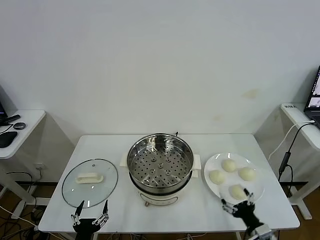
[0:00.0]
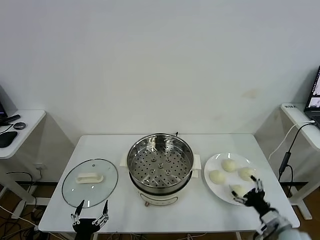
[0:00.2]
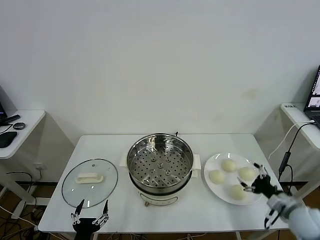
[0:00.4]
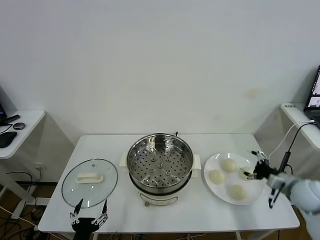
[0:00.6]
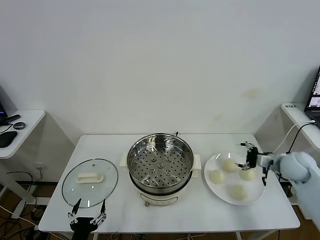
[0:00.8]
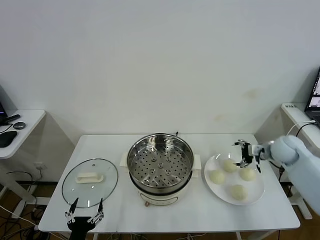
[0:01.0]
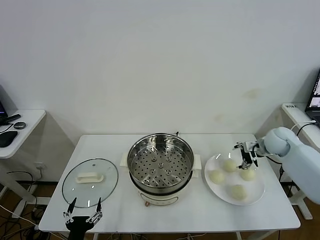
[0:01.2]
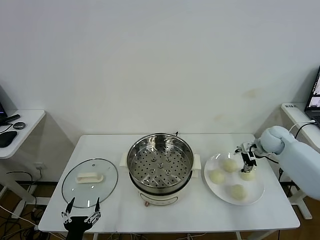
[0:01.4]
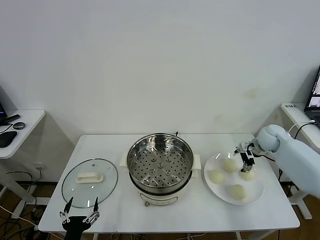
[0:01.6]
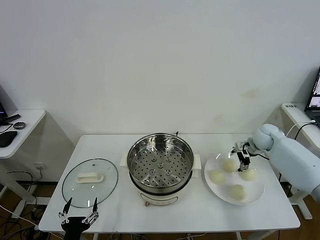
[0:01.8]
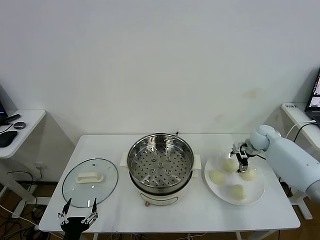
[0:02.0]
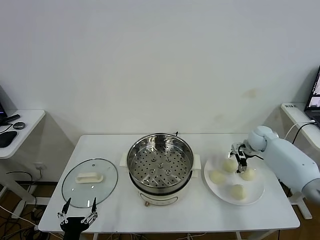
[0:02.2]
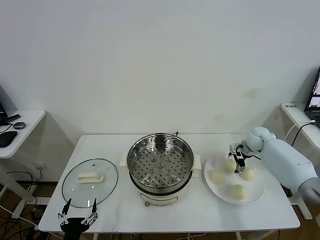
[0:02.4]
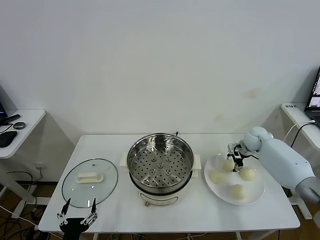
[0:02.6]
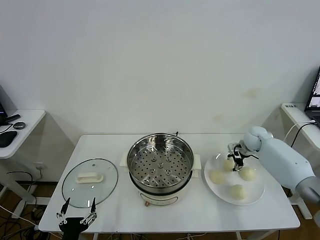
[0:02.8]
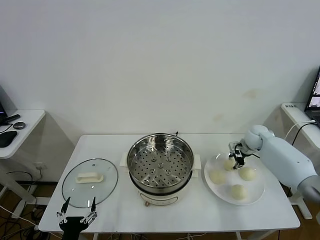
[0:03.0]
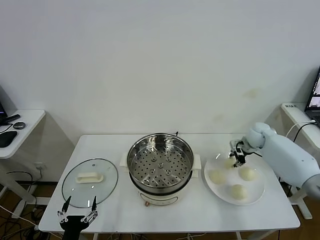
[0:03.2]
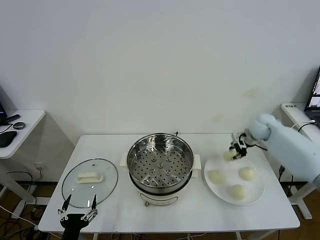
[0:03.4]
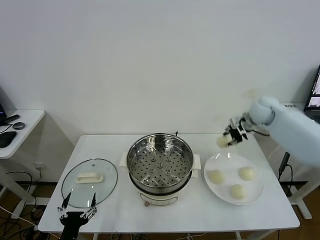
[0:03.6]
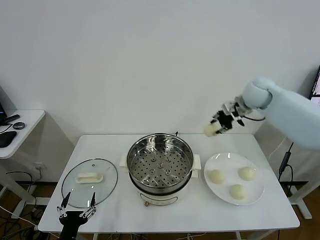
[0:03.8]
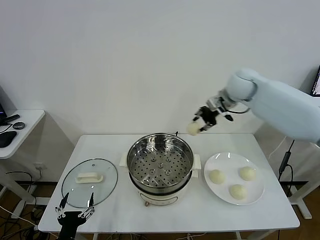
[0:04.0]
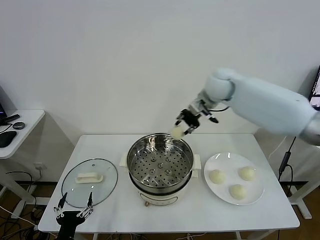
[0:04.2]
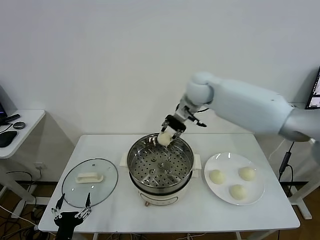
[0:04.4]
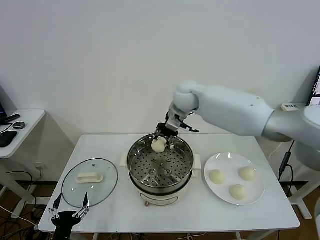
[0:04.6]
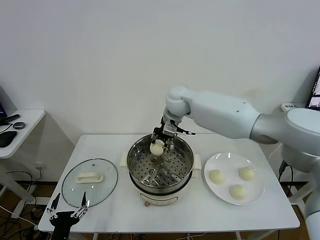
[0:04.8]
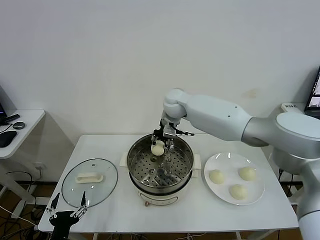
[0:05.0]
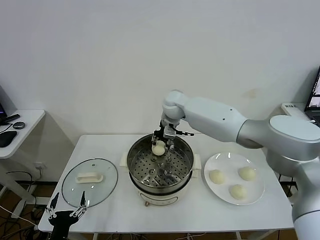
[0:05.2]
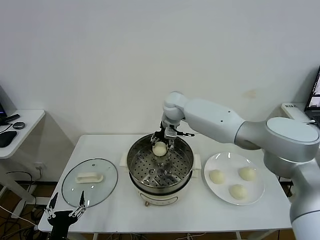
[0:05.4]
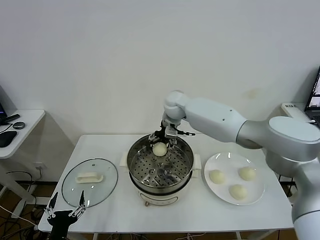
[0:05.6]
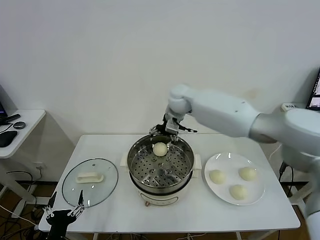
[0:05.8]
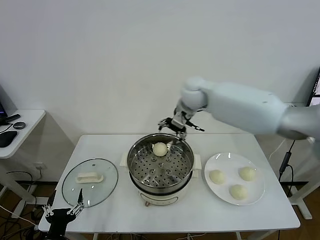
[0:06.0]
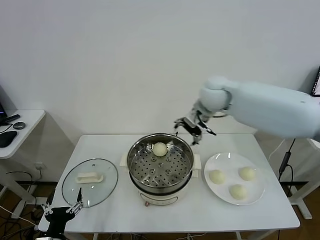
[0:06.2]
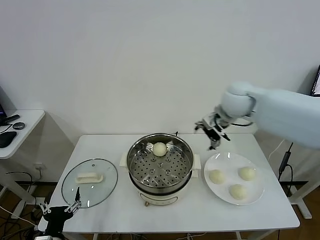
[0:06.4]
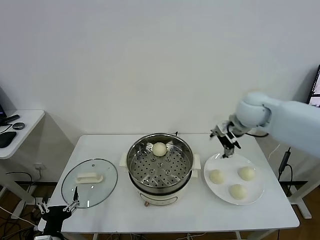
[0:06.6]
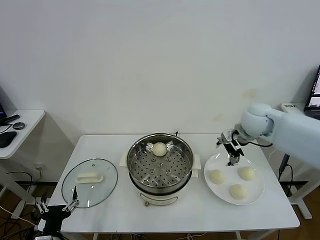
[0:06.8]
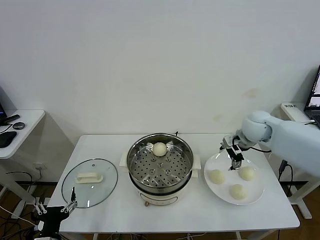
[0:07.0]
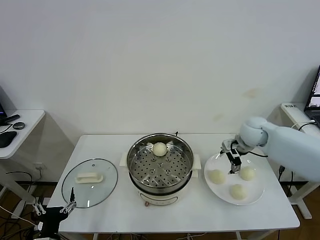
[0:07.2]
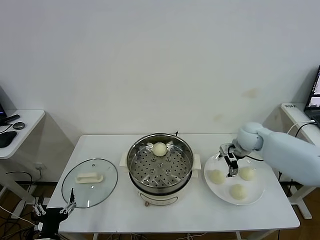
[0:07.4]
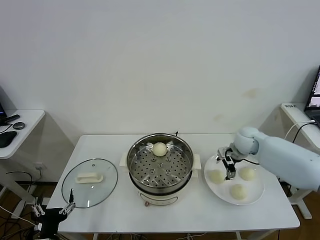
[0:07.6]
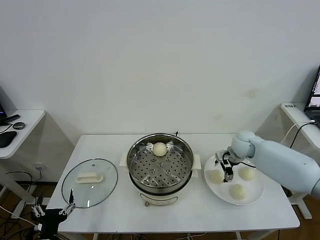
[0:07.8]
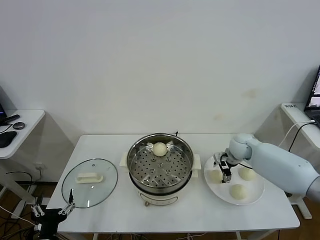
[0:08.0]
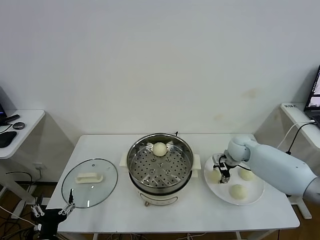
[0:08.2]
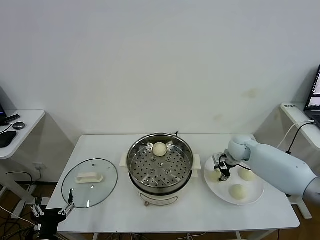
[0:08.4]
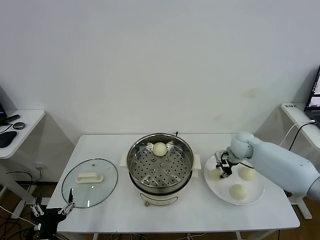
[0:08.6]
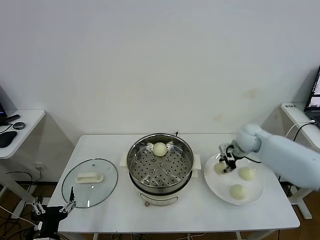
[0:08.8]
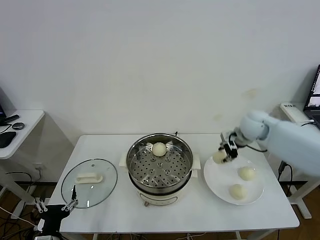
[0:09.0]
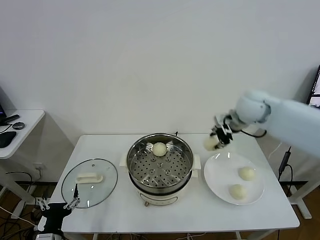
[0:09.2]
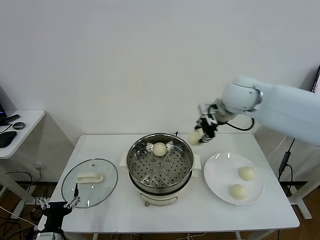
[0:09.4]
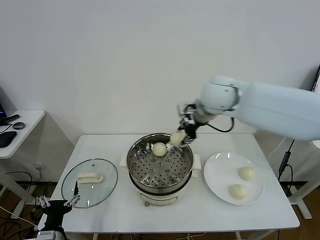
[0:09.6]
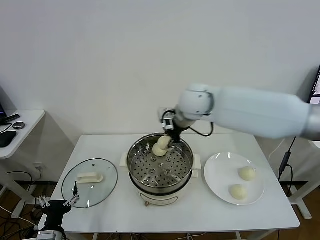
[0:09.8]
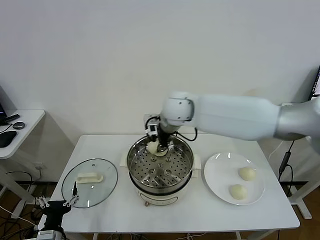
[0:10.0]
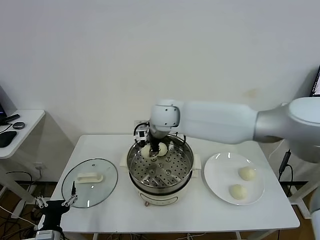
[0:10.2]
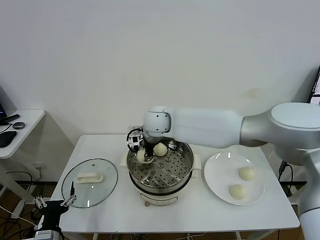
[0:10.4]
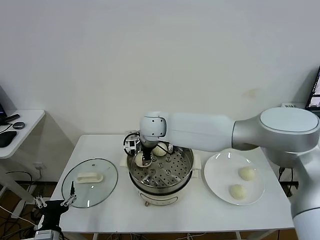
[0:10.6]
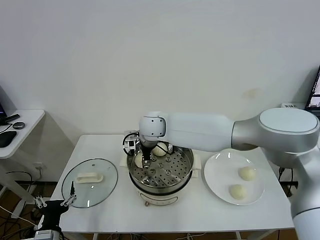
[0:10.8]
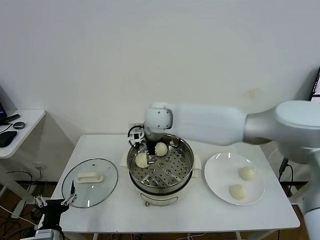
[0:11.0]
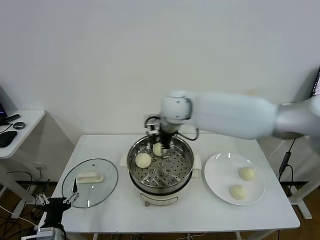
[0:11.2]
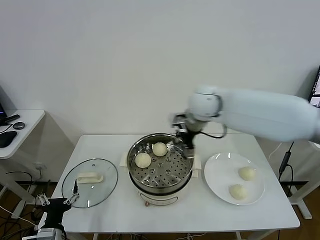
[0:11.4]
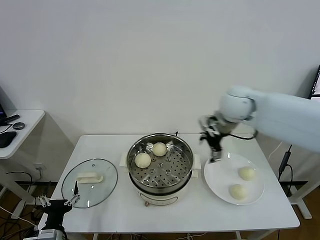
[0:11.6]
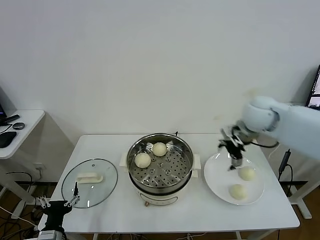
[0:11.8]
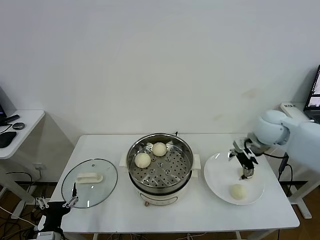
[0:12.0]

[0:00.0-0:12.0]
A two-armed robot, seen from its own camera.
Task of the whole recording: take steamed baozi put them in steamer.
Step, 0:00.0 to 0:02.8: Grasp the baozi in the plate with right gripper.
Step, 0:03.0 to 0:05.6: Place the baozi on the steamer with right gripper.
Step, 0:05.8 to 0:08.6: Grasp the baozi in the plate with right gripper.
Step, 0:08.8 to 0:11.0: Place the baozi on the steamer with right gripper.
0:01.6 to 0:03.0: The right gripper moves approximately 5 cm, and closes its fingers.
0:03.0 to 0:04.4: The right gripper travels to the left and upward by roughly 35 cm.
0:04.4 to 0:06.0: The right gripper travels downward and back again, some 10 cm each way, and opens up.
0:06.0 to 0:07.6: The right gripper goes roughly 25 cm to the right and downward.
0:07.6 to 0:09.0: The right gripper shifts some 5 cm upward, and closes up.
0:09.0 to 0:10.4: The right gripper is displaced to the left by approximately 35 cm.
0:10.4 to 0:12.0: The right gripper is displaced to the right by approximately 35 cm, and opens.

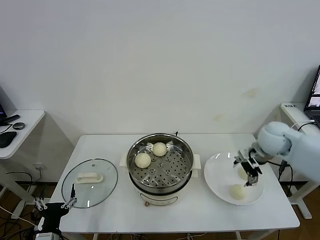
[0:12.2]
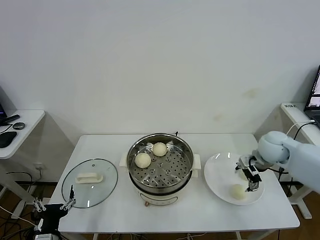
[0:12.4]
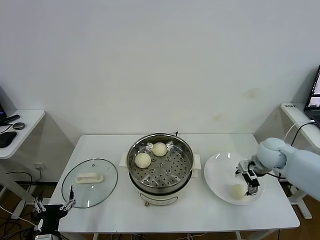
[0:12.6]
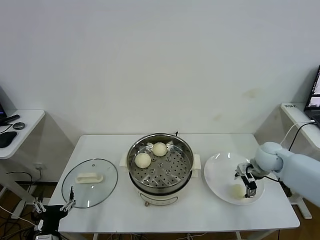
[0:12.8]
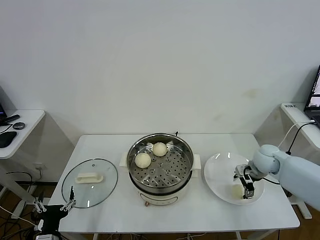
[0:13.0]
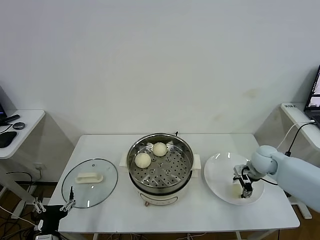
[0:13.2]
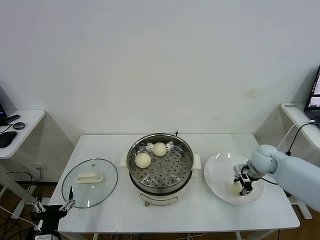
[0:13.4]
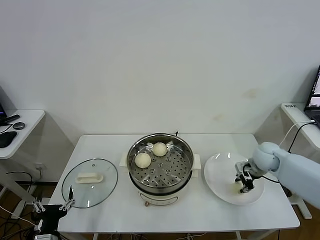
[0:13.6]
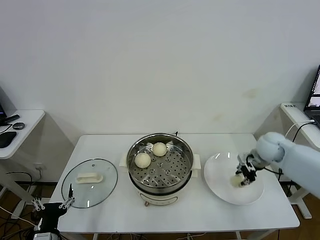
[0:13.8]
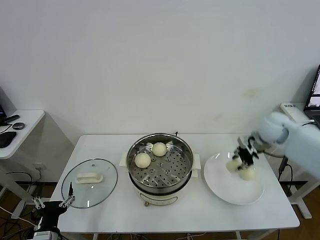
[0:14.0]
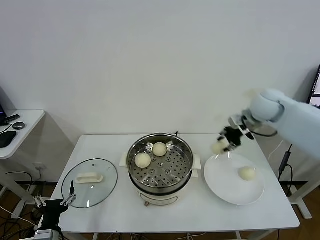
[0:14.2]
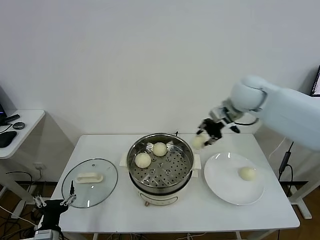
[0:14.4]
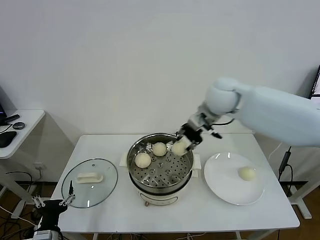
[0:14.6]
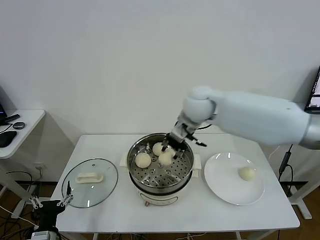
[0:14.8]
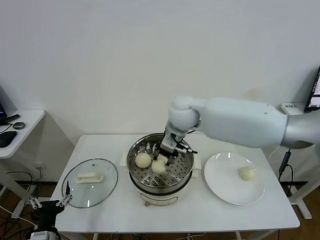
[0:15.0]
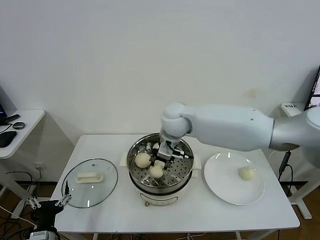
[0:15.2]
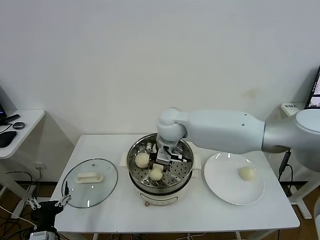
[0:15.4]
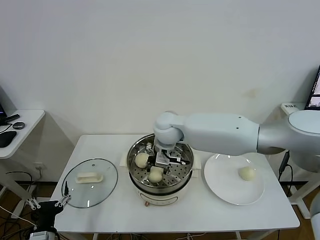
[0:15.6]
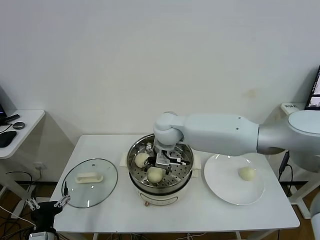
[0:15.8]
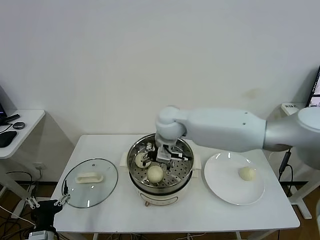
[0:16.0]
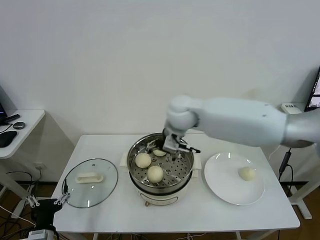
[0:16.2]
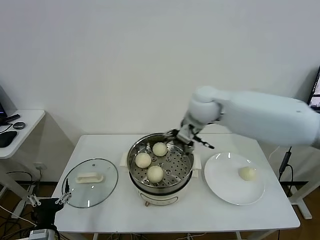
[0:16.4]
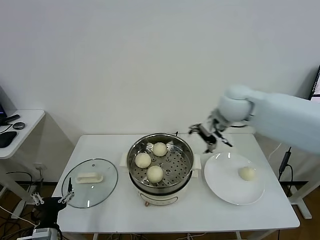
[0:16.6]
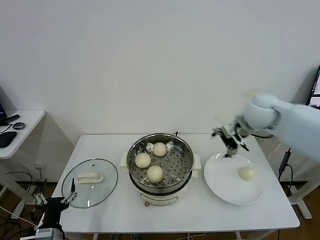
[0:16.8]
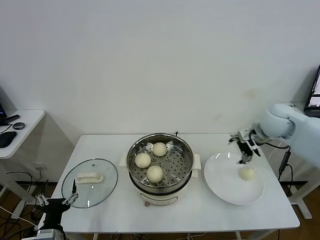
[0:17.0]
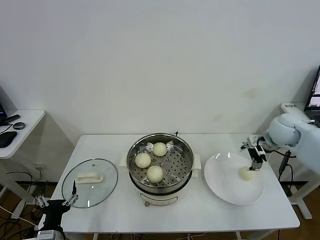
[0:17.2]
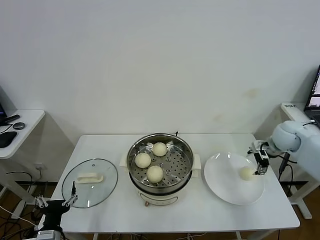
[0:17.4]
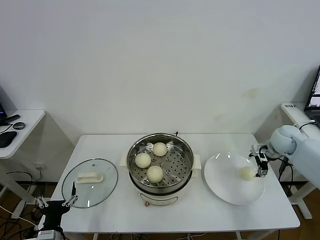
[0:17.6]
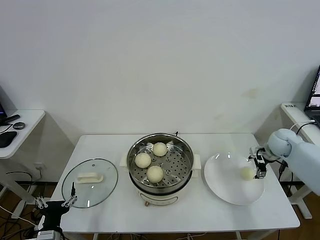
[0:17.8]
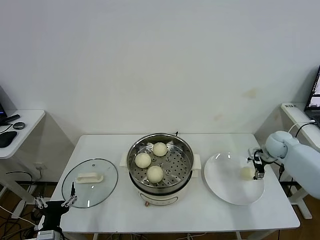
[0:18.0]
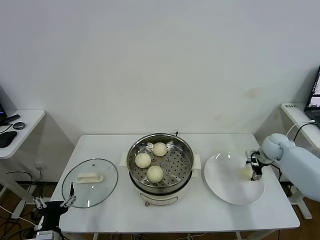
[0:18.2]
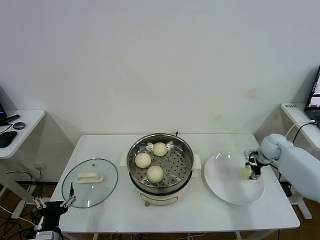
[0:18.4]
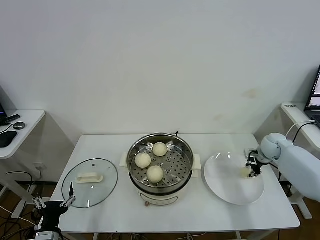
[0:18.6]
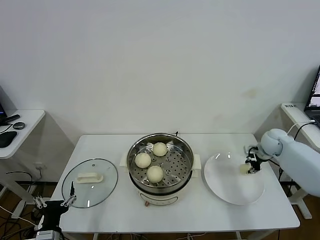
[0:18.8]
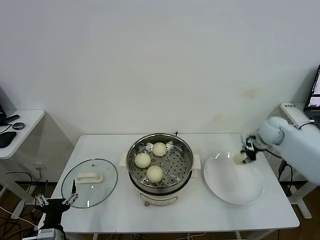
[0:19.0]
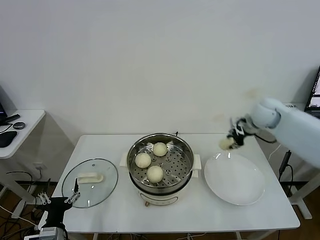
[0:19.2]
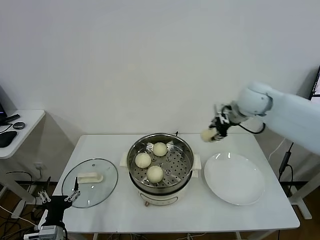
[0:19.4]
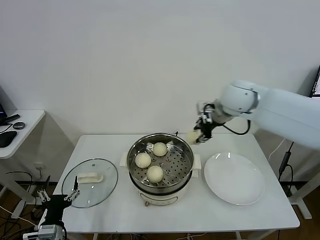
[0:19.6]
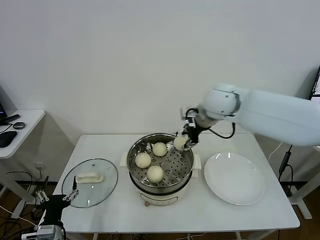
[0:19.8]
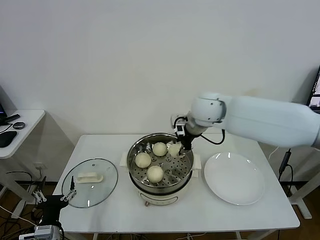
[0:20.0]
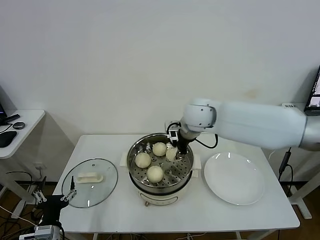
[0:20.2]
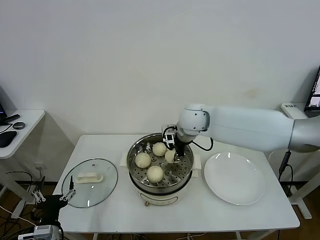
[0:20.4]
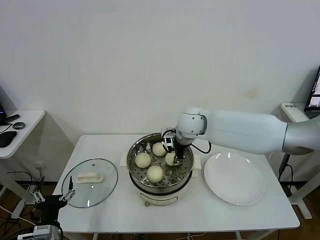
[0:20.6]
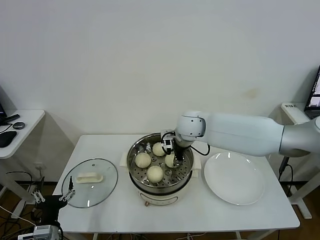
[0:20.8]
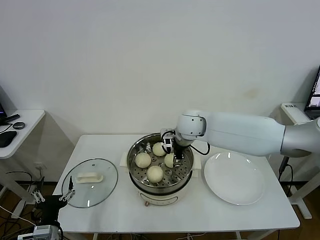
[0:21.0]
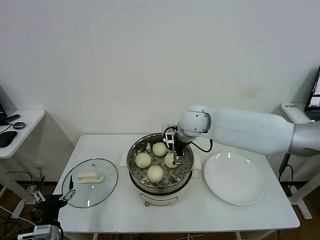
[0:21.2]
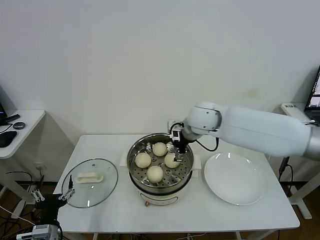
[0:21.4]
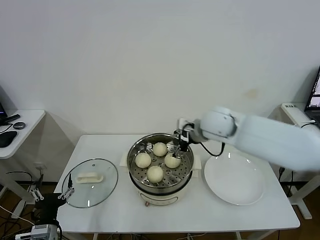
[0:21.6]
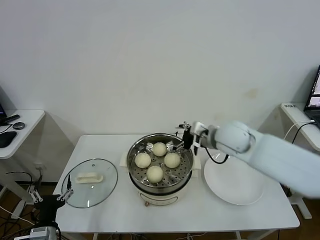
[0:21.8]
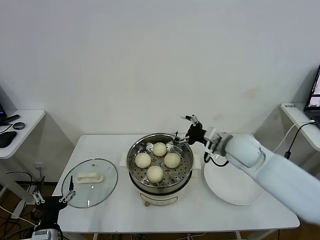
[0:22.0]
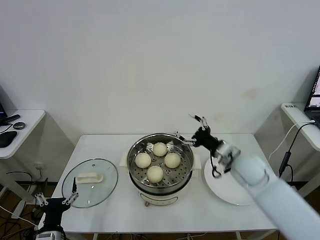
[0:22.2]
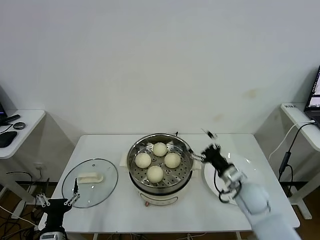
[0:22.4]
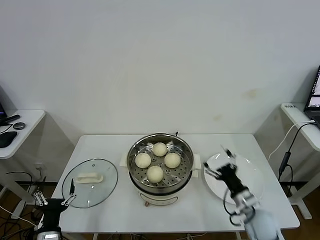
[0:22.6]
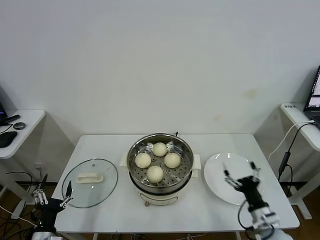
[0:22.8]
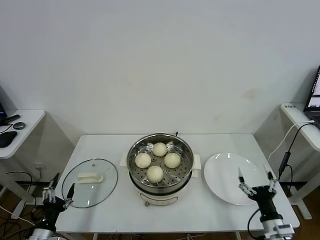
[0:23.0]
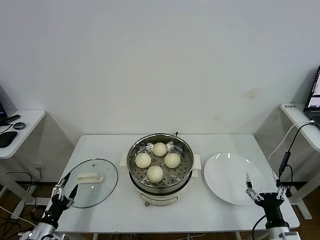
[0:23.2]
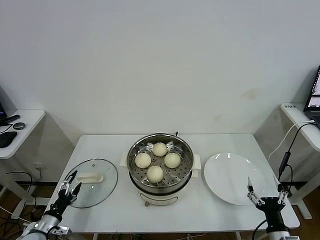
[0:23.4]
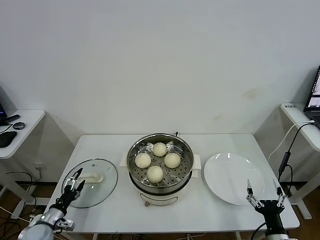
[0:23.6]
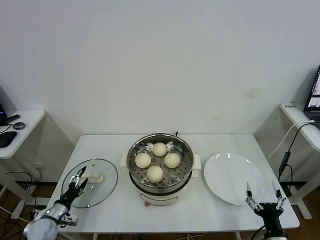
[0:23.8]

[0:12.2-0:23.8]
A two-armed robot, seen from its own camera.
Task of the whole recording: take steamed baozi put them in steamer.
Step, 0:12.2 to 0:13.6: Grasp the baozi in the plate with right gripper.
Step, 0:13.8 to 0:16.0: Place the baozi on the steamer with right gripper.
Step, 0:16.2 to 0:18.6: Grasp the baozi in the plate with right gripper.
Step, 0:18.8 to 0:21.4: Place the baozi on the steamer with right gripper.
0:12.2 to 0:13.6: The right gripper goes approximately 10 cm downward, and closes up.
0:13.6 to 0:15.0: The right gripper is displaced to the left and upward by about 35 cm.
0:15.0 to 0:16.6: The right gripper heads to the right, covering some 15 cm, and opens.
0:16.6 to 0:18.0: The right gripper heads to the right and downward, covering roughly 30 cm.
0:18.0 to 0:19.4: The right gripper moves upward and to the left, some 25 cm, and closes up.
0:19.4 to 0:21.0: The right gripper travels to the left and downward by some 20 cm, and opens up.
0:21.0 to 0:22.4: The right gripper goes some 30 cm to the right, backward and downward.
0:22.4 to 0:23.8: The right gripper moves backward and downward, about 25 cm, while the left gripper shifts about 20 cm forward, to the left and downward.
